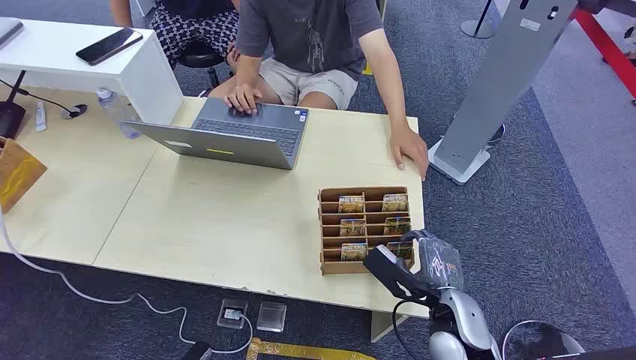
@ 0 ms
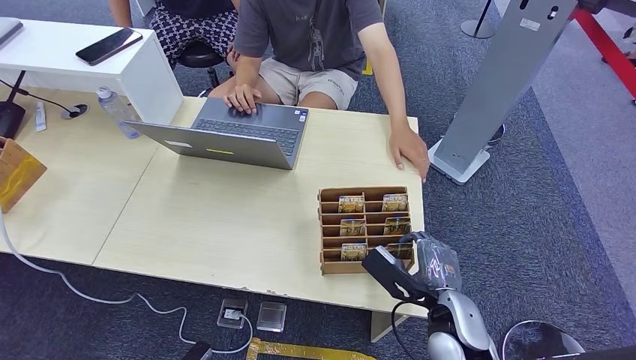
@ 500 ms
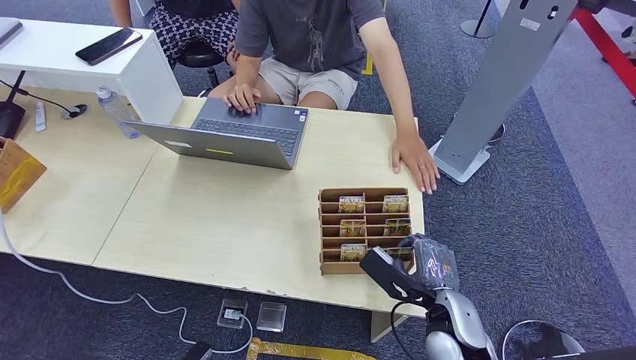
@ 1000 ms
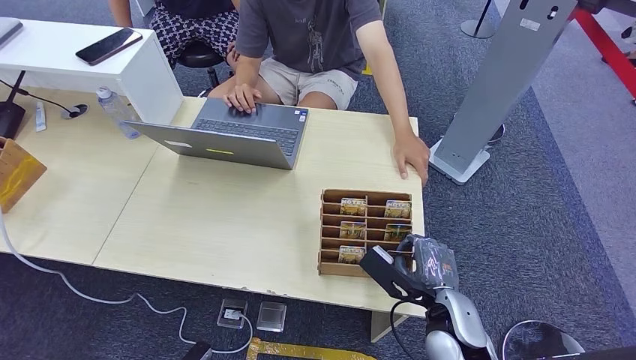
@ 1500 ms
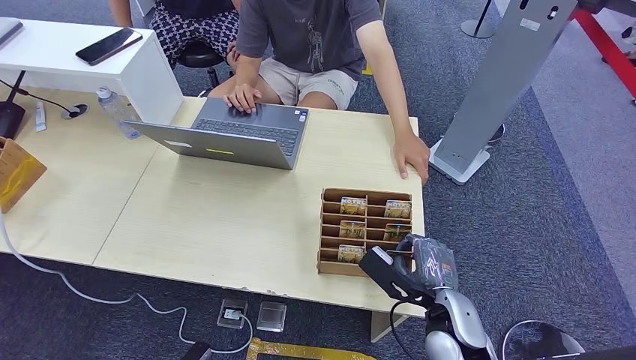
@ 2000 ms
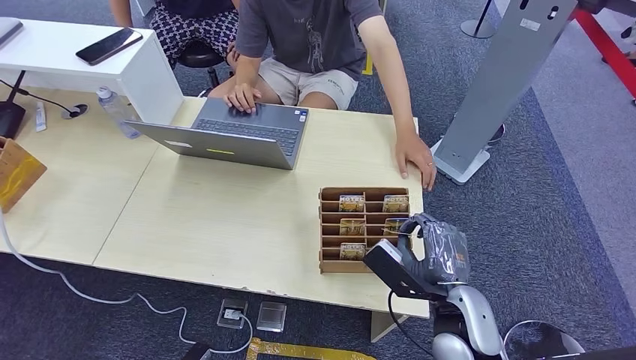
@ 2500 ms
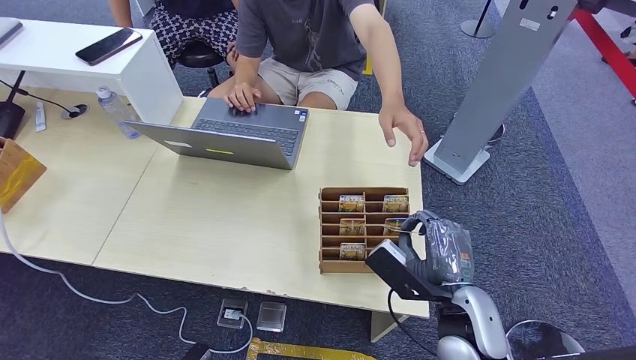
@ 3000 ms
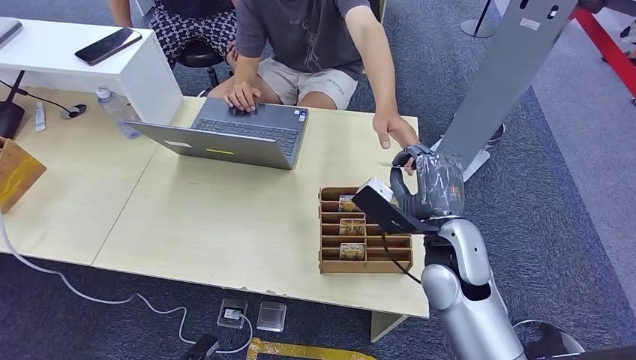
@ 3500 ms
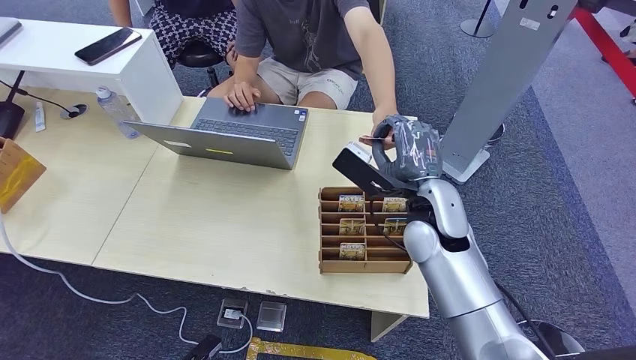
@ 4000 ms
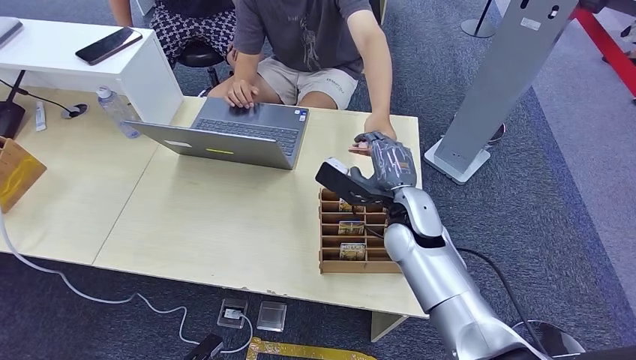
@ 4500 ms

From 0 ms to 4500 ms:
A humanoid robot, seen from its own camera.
Step, from 0 ms to 2500 ms: Pick up the room card from the card holder.
Step, from 3500 ms to 4500 ms: Hand the room card to the target.
From 2000 ms to 4500 ms: The right hand goes roughly 15 cm forward and to the left.
